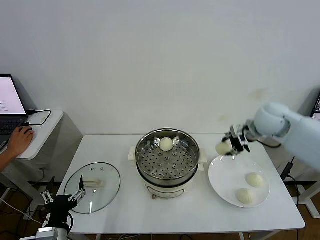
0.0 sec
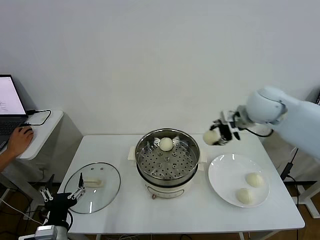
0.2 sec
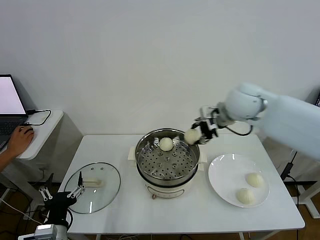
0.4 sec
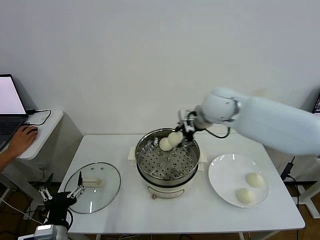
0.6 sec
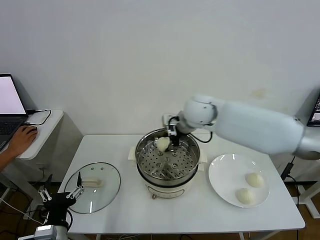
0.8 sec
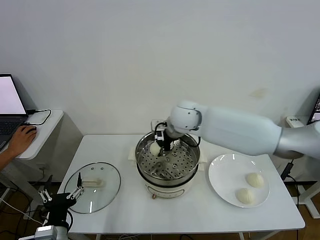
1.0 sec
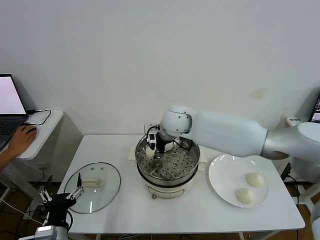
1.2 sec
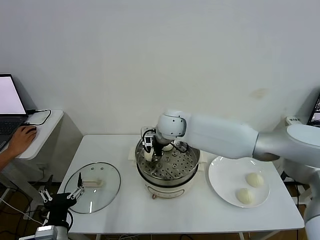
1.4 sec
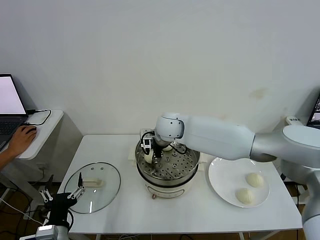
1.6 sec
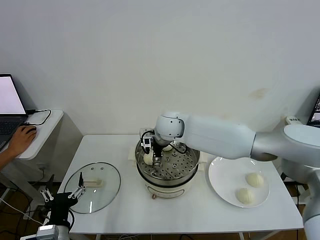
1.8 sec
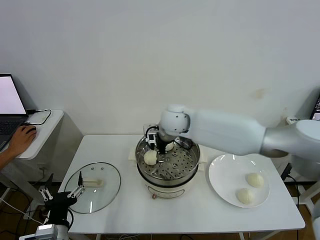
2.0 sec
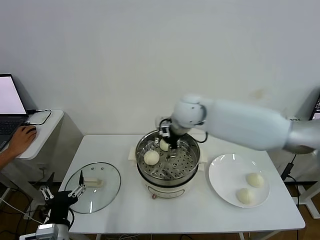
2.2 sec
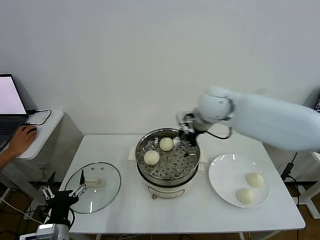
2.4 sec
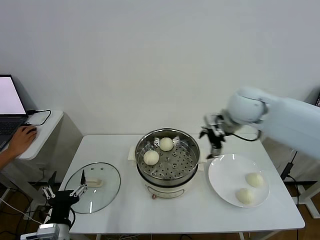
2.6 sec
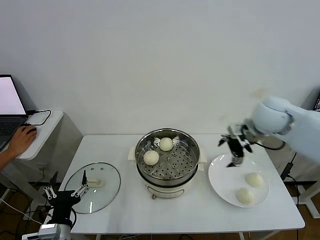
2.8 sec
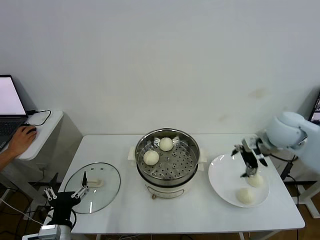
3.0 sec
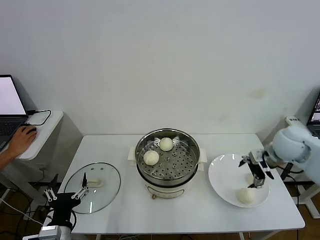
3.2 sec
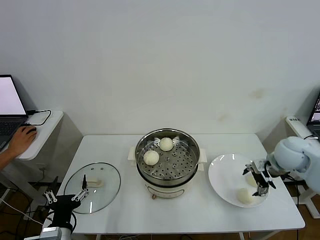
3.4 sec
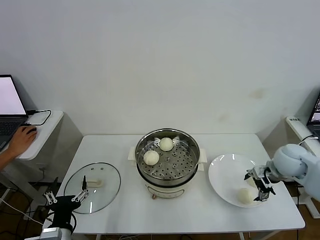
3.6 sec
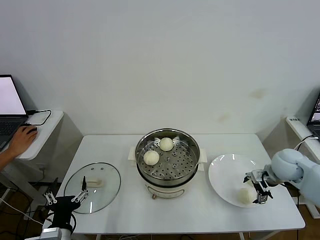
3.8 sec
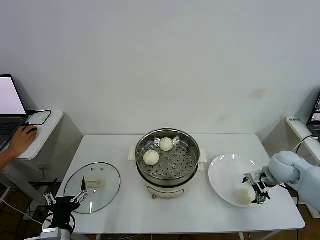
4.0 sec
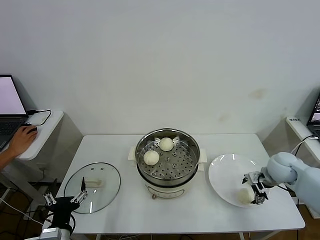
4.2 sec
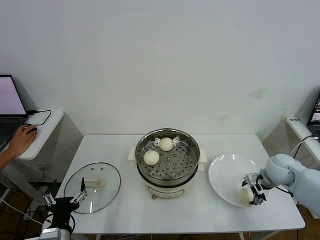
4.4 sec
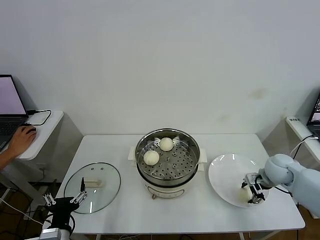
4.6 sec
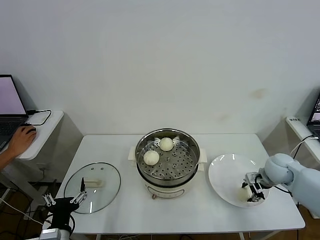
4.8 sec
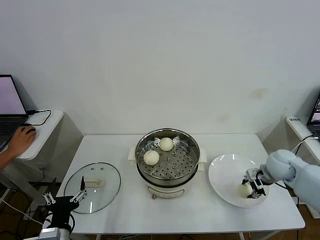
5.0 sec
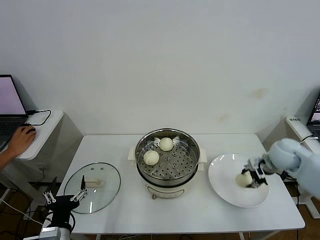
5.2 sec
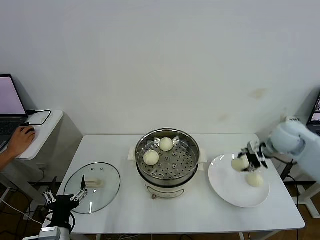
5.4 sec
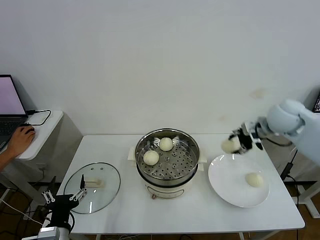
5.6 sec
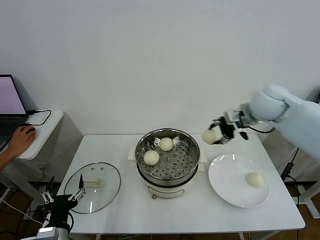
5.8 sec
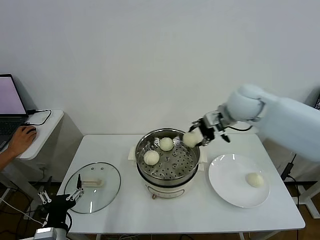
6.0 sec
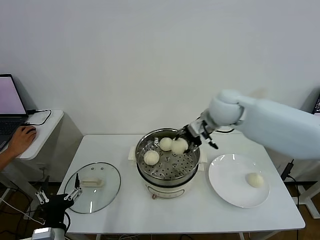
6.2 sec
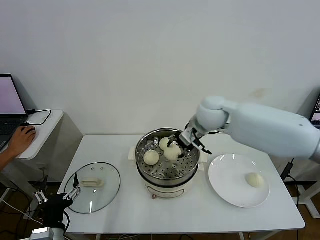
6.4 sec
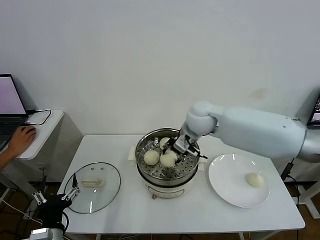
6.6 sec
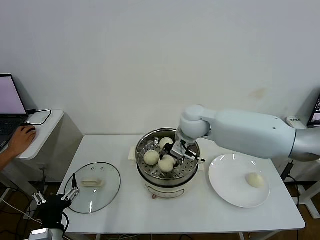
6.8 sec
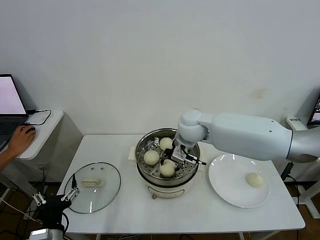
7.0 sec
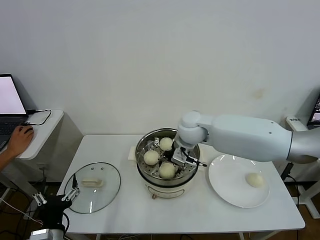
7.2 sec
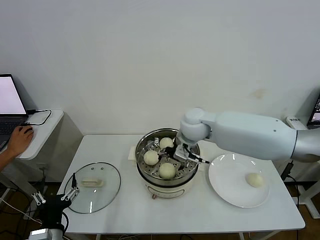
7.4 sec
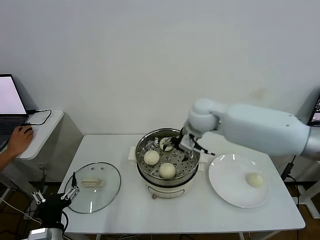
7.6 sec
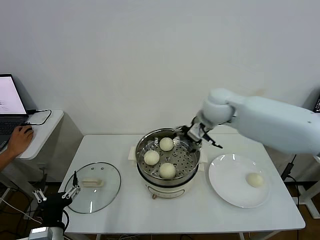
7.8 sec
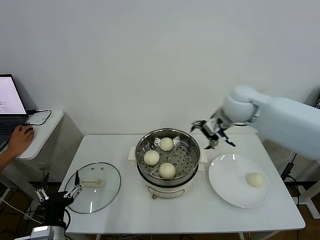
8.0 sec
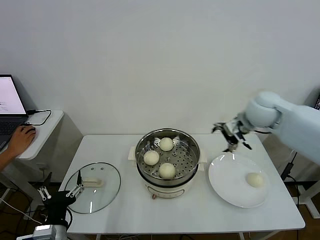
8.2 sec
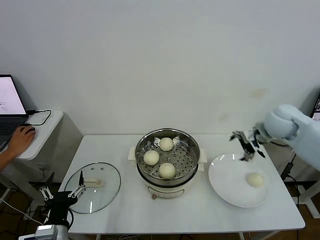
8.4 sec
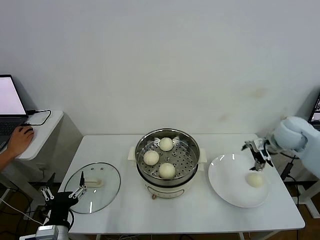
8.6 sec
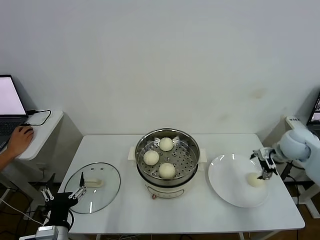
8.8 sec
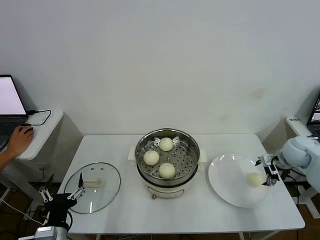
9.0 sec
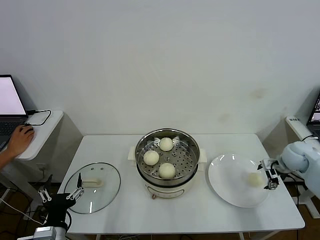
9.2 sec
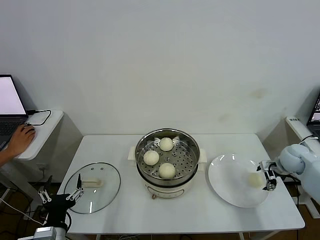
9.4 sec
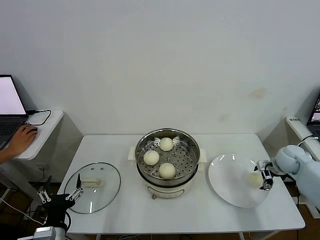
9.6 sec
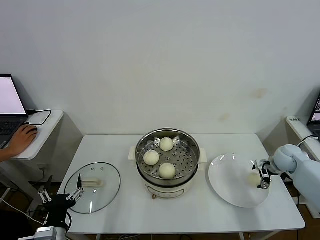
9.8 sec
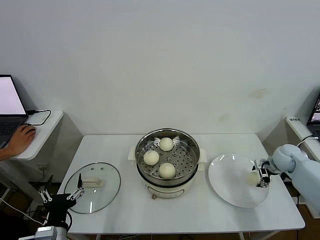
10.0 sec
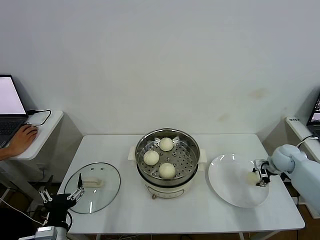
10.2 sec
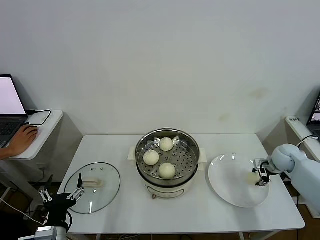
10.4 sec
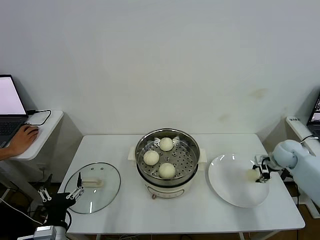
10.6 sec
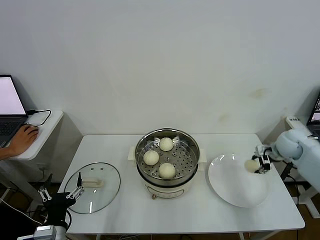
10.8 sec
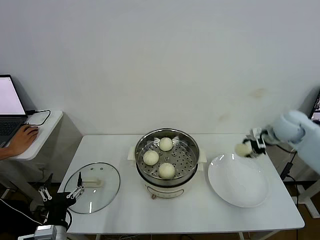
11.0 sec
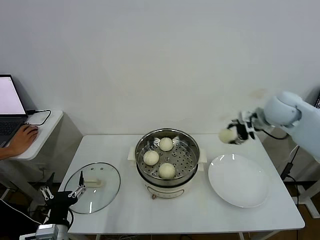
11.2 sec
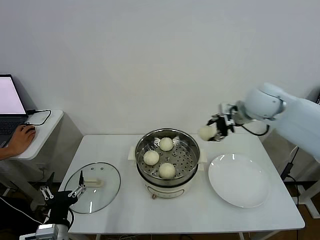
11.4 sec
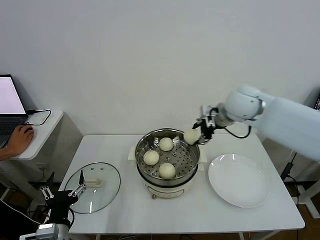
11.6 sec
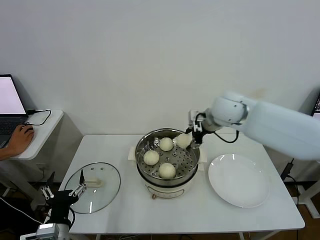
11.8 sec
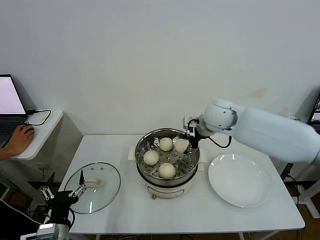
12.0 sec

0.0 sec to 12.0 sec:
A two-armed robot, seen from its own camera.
Step, 0.0 sec to 1.8 sec: Place the baozi on the steamer with right gripper.
Step, 2.2 sec to 4.6 sec: Grasp the baozi in the plate with right gripper.
Step, 4.8 sec to 7.4 sec: Place the baozi on the steamer with right gripper.
Step, 7.6 sec to 10.2 sec: Grasp the baozi in the plate with right gripper.
0.0 sec to 1.6 sec: The right gripper is displaced to the left by about 30 cm, and opens up.
1.6 sec to 3.0 sec: The right gripper is displaced to the right by roughly 35 cm, and opens up.
3.0 sec to 4.4 sec: The right gripper heads downward, covering approximately 15 cm, and closes up.
4.4 sec to 6.0 sec: The right gripper heads upward and to the left, covering some 30 cm, and closes.
6.0 sec to 7.6 sec: The right gripper is displaced to the left by roughly 10 cm, and opens.
7.6 sec to 9.0 sec: The right gripper is displaced to the right by about 35 cm.
9.0 sec to 10.4 sec: The right gripper is displaced downward by about 5 cm, and closes up.
10.4 sec to 12.0 sec: The right gripper travels to the left and upward by approximately 35 cm.

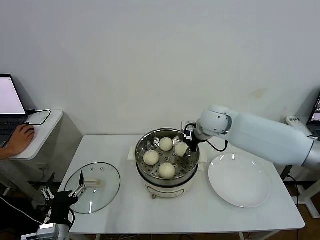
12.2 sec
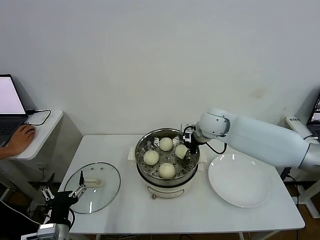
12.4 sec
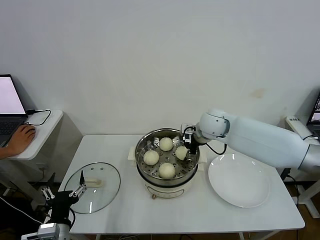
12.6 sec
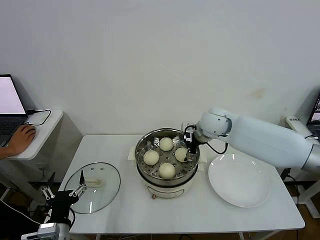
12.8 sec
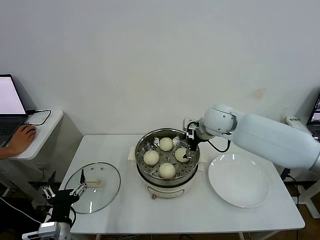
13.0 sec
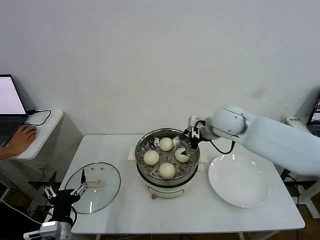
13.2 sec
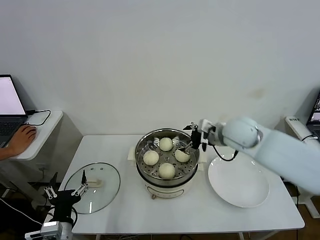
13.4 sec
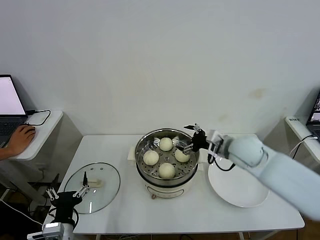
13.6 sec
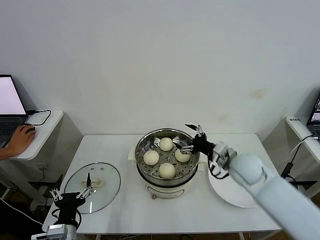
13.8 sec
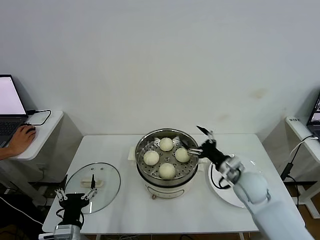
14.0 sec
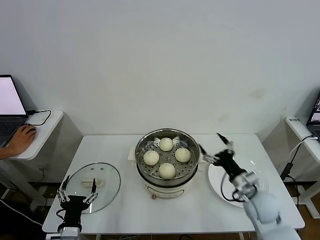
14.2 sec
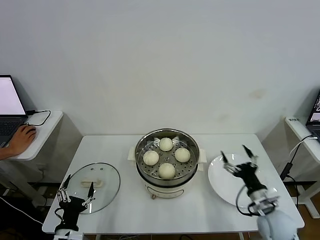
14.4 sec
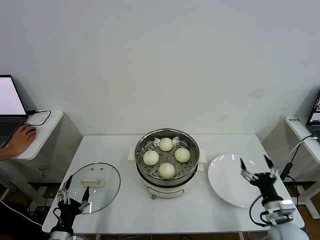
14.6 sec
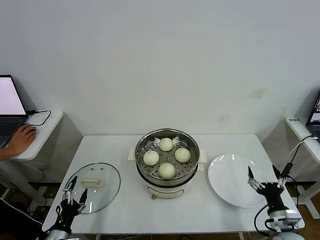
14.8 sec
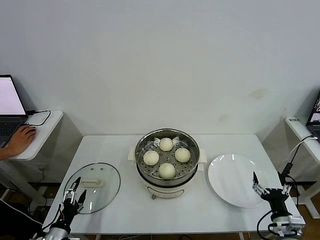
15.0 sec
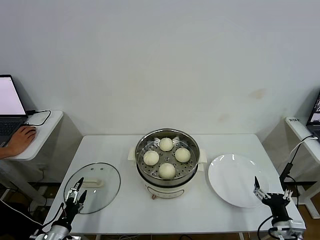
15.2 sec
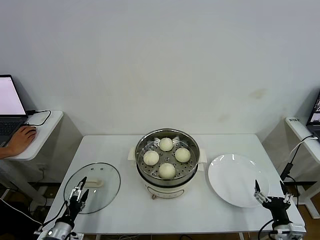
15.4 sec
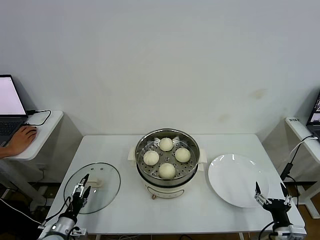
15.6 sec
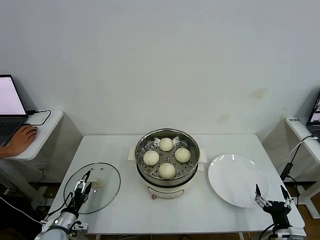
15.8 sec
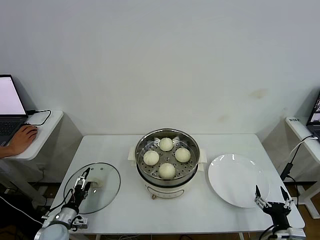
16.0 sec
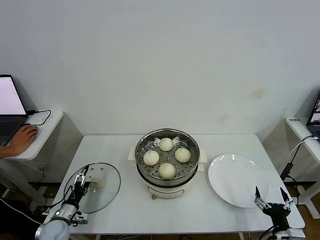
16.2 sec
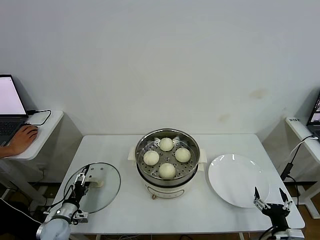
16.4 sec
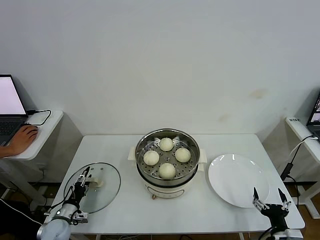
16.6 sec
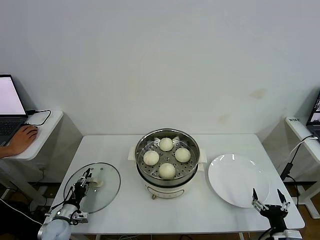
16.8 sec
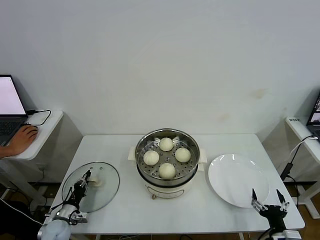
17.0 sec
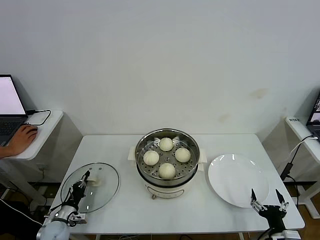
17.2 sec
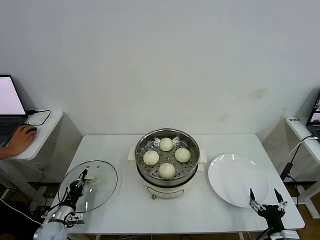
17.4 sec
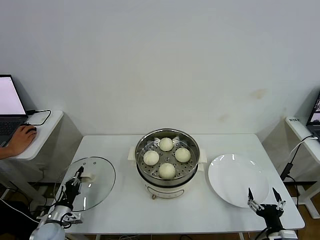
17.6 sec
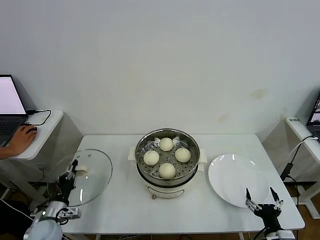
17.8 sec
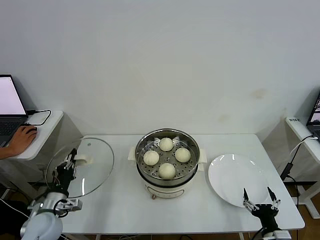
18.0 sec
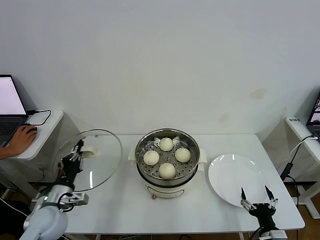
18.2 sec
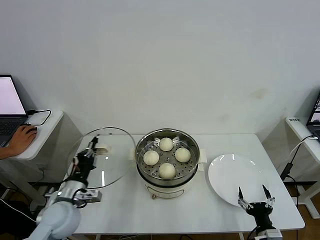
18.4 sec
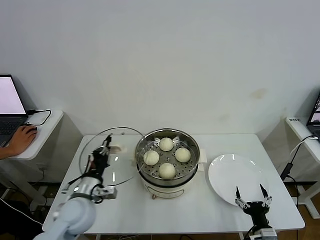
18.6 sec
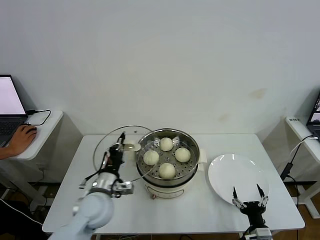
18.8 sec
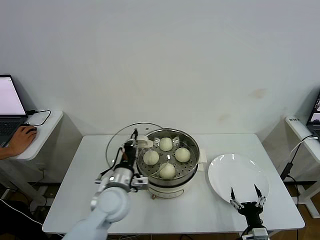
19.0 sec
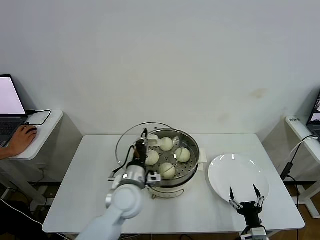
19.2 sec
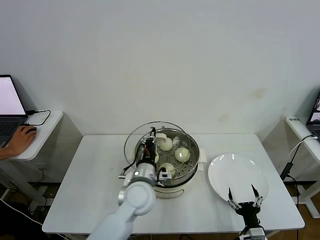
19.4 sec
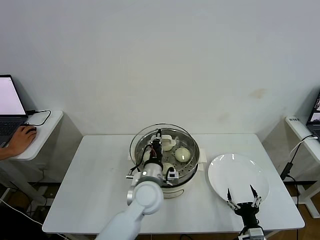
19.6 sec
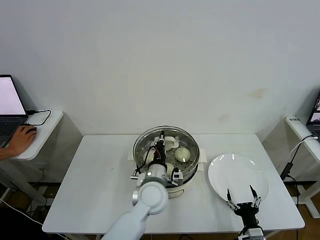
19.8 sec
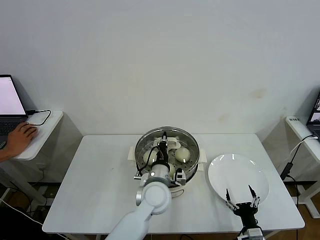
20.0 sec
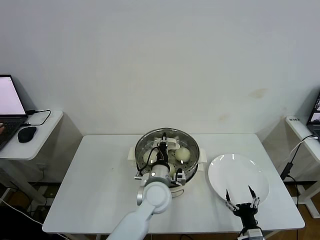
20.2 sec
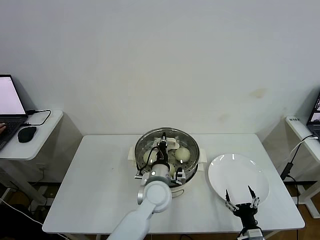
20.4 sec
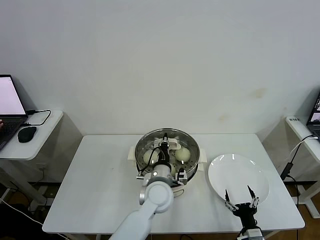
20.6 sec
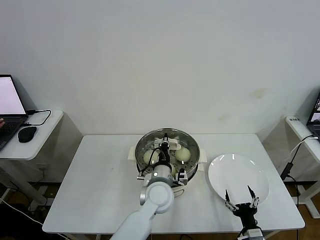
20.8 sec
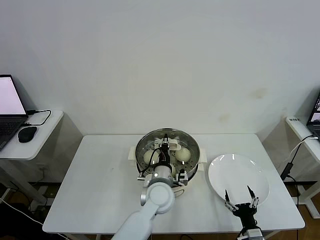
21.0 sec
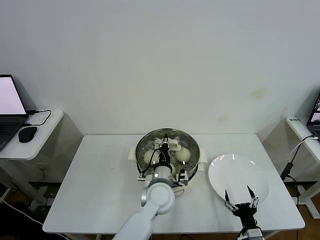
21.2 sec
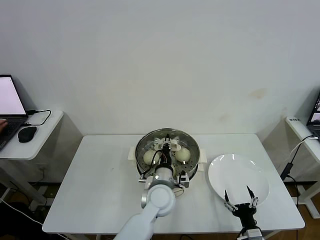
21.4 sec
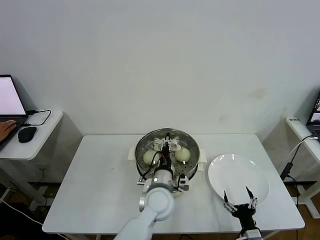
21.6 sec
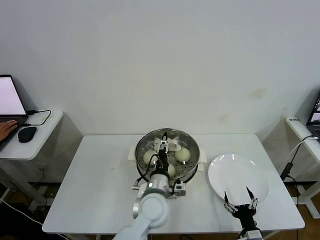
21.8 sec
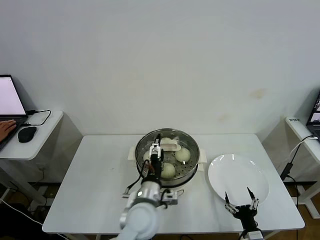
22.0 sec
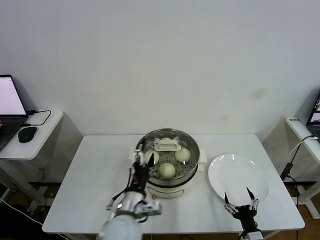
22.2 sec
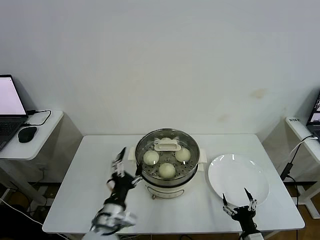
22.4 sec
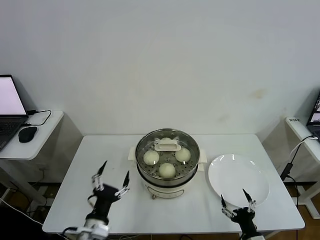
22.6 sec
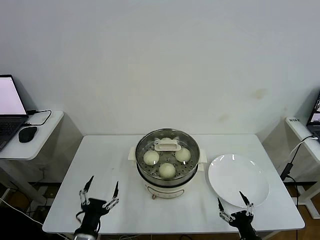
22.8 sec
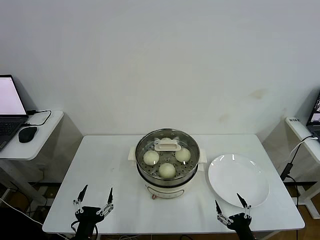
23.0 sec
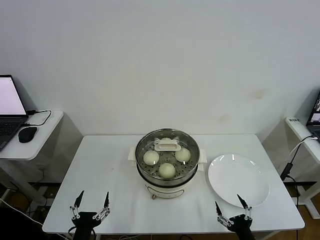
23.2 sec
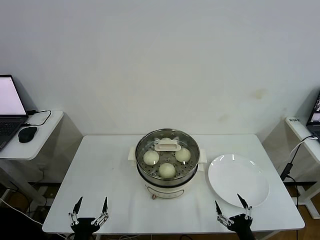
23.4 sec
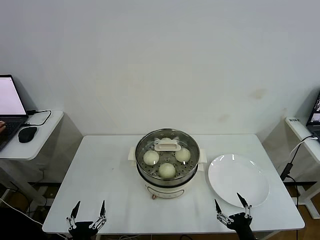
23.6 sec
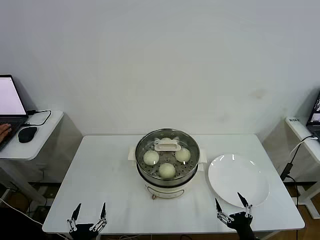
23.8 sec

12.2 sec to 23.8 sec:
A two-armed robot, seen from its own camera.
Step, 13.0 sec to 17.0 sec: Grasp the pot lid with left gripper.
Step, 17.2 sec to 21.8 sec: Place the pot lid on the steamer with left gripper.
12.2 sec to 13.6 sec: The right gripper goes roughly 10 cm backward and to the right, and opens up.
13.6 sec to 15.0 sec: The left gripper is displaced to the left and downward by about 10 cm, while the right gripper goes some 35 cm backward, downward and to the right.
15.0 sec to 16.6 sec: The left gripper goes roughly 15 cm forward and downward.
16.6 sec to 18.0 sec: The left gripper heads upward, covering roughly 10 cm, and closes up.
18.0 sec to 19.4 sec: The right gripper moves approximately 5 cm. The left gripper goes roughly 30 cm to the right.
19.4 sec to 21.0 sec: The left gripper is displaced to the right by roughly 5 cm.
21.0 sec to 22.4 sec: The left gripper is displaced to the left and backward by roughly 20 cm, and opens up.
22.4 sec to 23.8 sec: The left gripper goes some 20 cm backward, to the left and downward; the right gripper changes place by approximately 5 cm.
